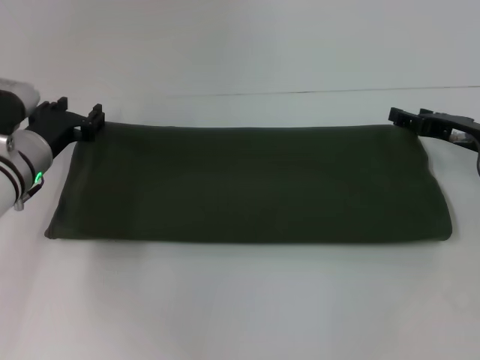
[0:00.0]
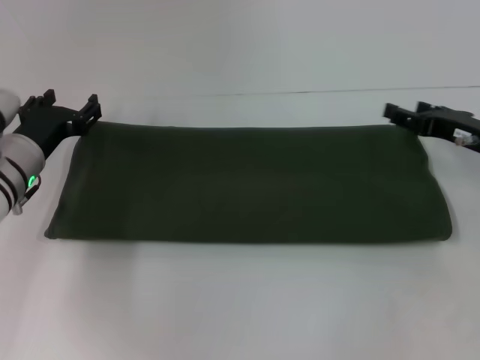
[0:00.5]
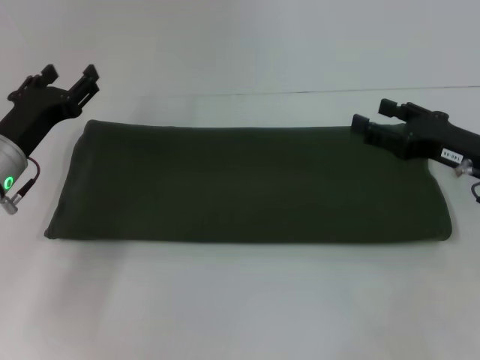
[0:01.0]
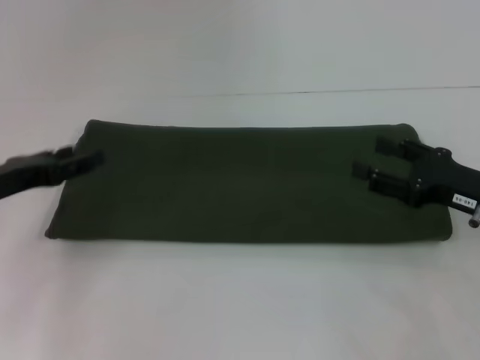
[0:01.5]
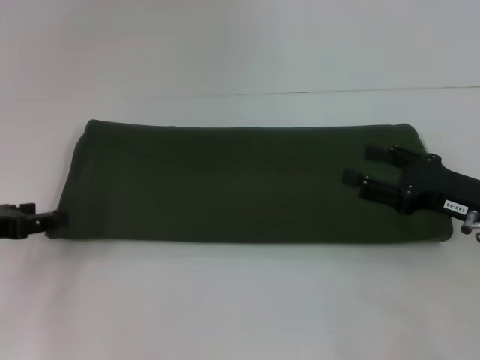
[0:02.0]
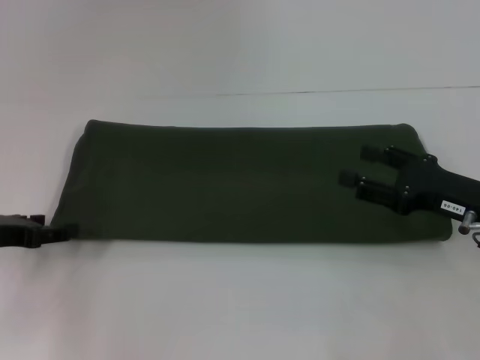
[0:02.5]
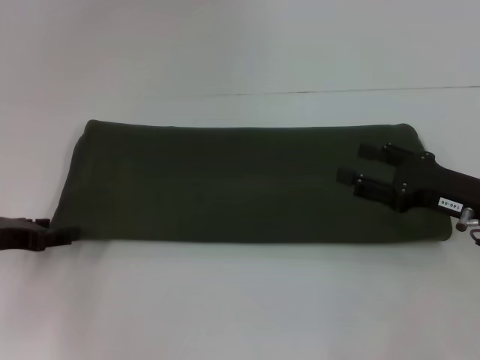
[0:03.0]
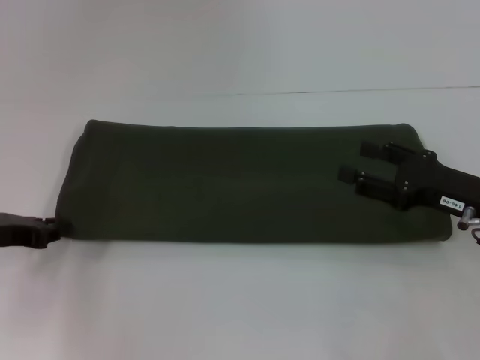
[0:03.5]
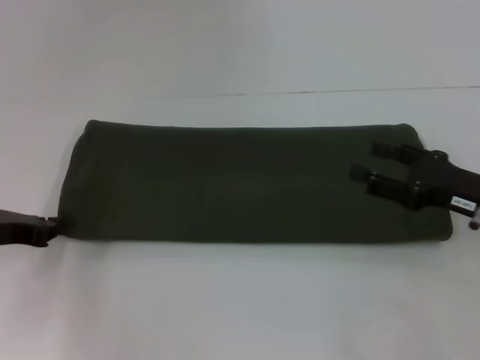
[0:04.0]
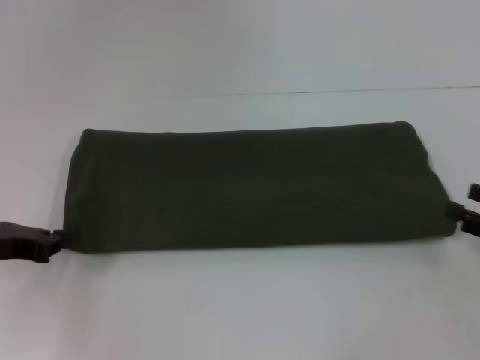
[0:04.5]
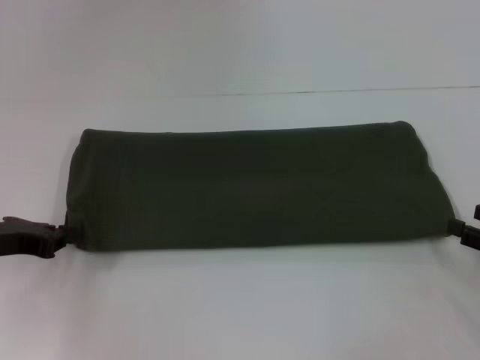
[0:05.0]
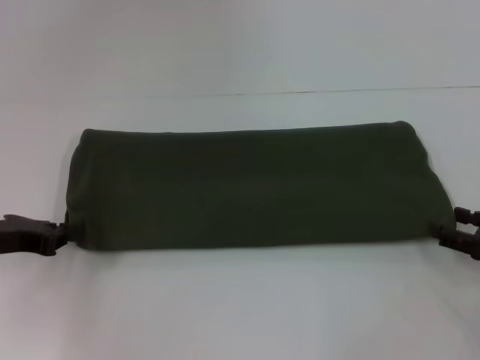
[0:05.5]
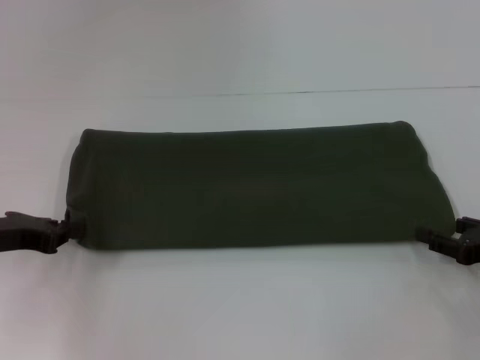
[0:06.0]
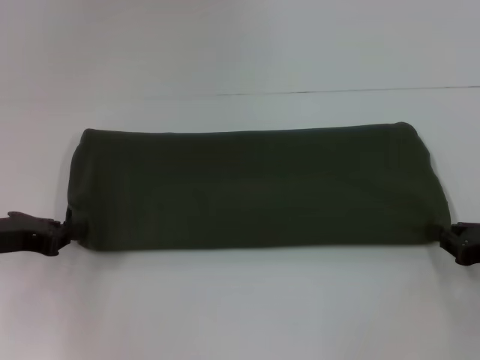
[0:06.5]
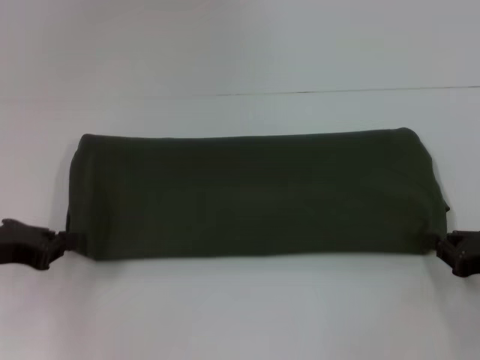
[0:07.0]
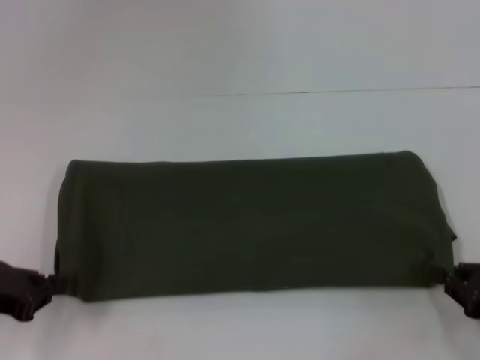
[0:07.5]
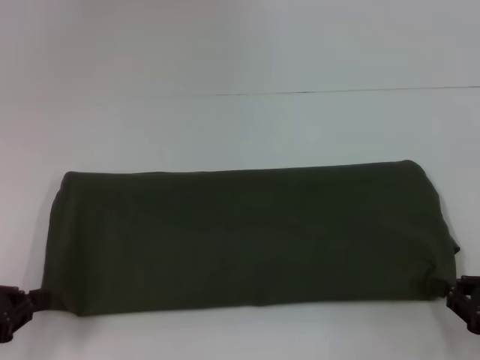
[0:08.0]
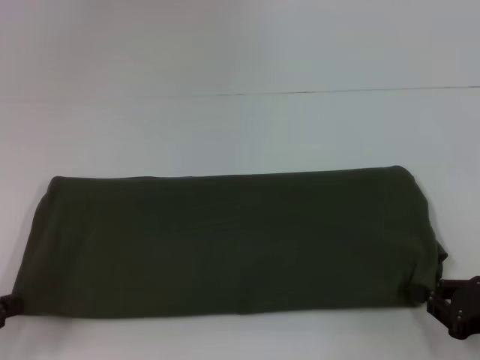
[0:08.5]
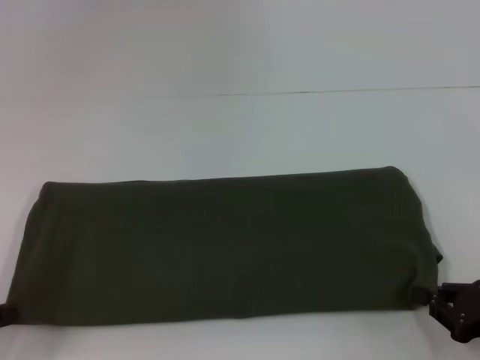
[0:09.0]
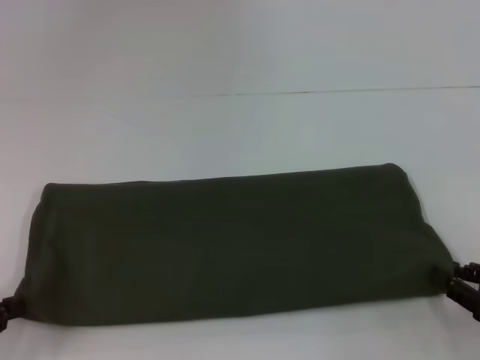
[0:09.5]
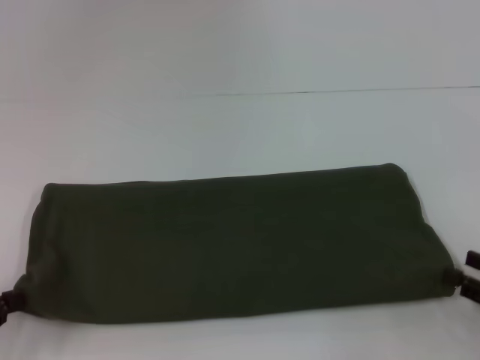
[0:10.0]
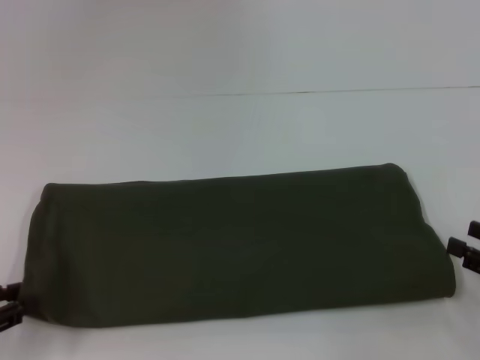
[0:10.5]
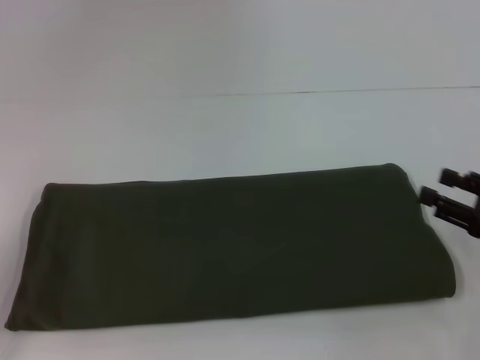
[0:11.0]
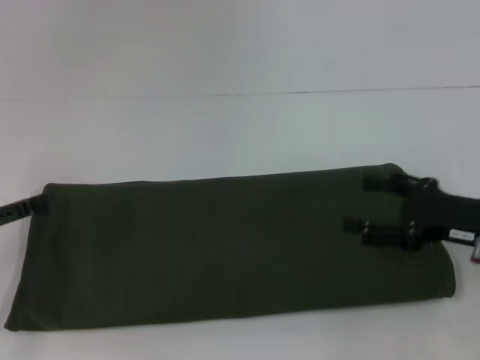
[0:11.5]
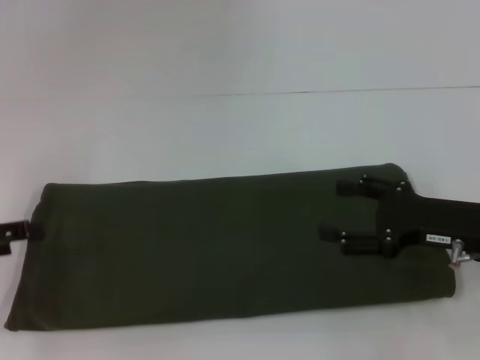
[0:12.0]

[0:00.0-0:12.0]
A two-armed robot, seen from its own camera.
Step, 0:00.0 to 0:09.5: Pull the clothes with your right hand.
Step, 0:10.0 to 0:10.5: Pull the clothes with your left hand.
0:00.0 to 0:02.0: The left gripper shifts about 15 cm to the left and backward, while the right gripper travels backward by about 10 cm.
0:02.0 to 0:04.0: The left gripper closes its fingers.
0:04.0 to 0:06.0: The right gripper travels to the right by approximately 5 cm.
0:06.0 to 0:08.0: Both grippers move backward, about 10 cm. The right gripper closes.
0:08.0 to 0:10.0: The right gripper opens up.
0:10.0 to 0:12.0: The right gripper moves forward, to the left and upward, some 15 cm, and opens its fingers, while the left gripper moves forward, some 5 cm, and opens its fingers.

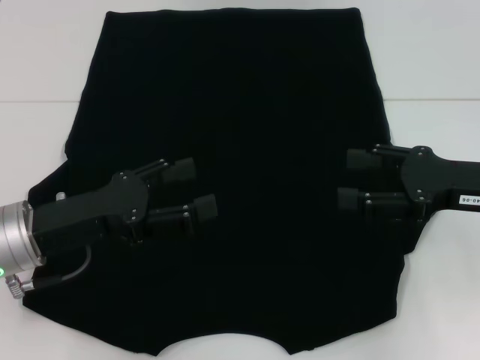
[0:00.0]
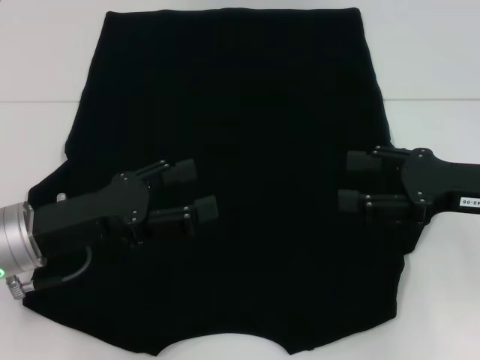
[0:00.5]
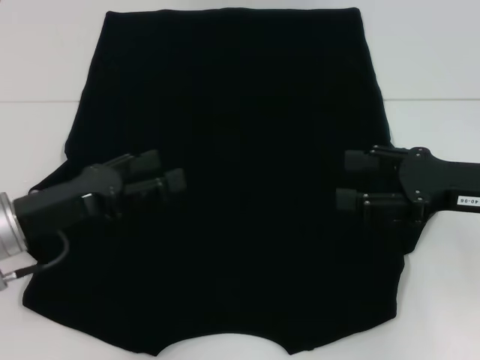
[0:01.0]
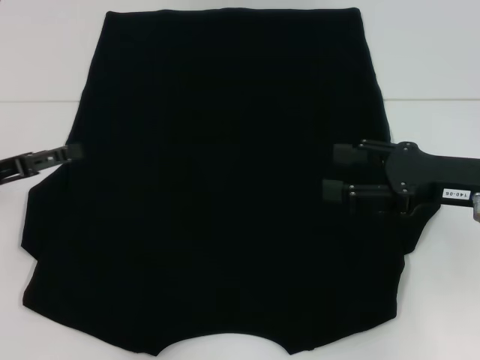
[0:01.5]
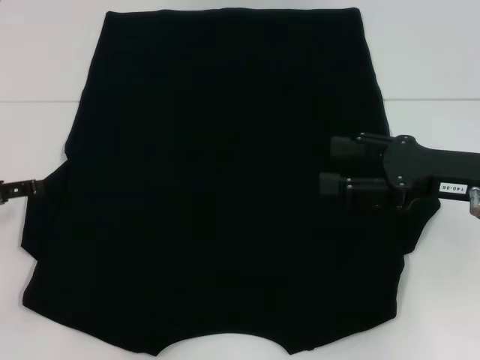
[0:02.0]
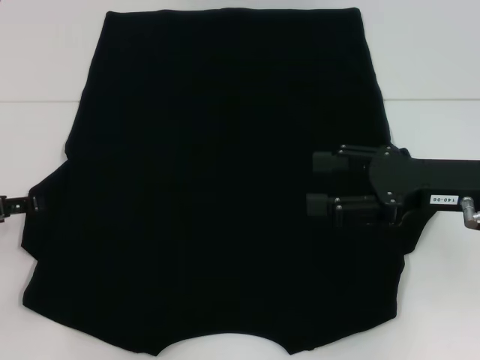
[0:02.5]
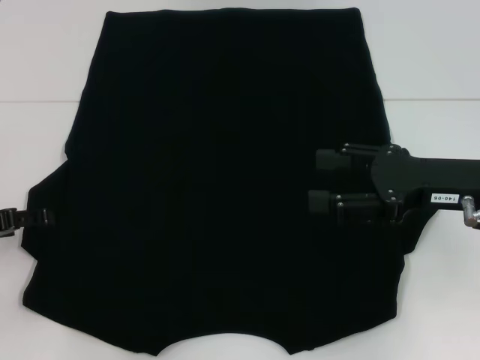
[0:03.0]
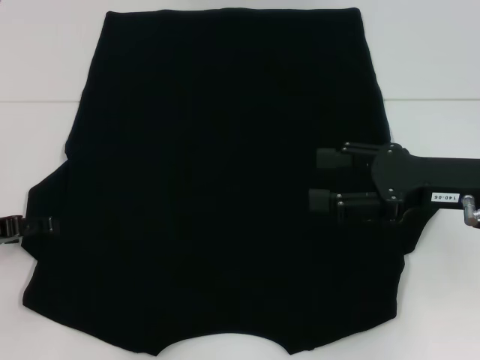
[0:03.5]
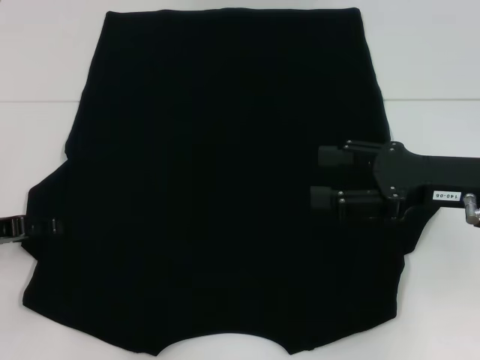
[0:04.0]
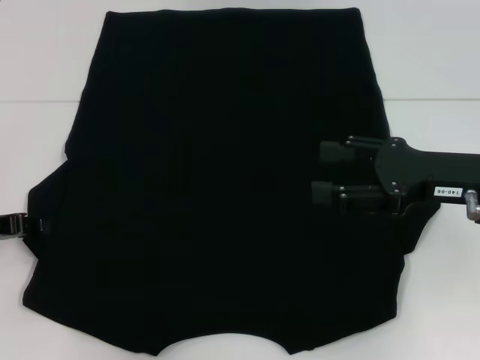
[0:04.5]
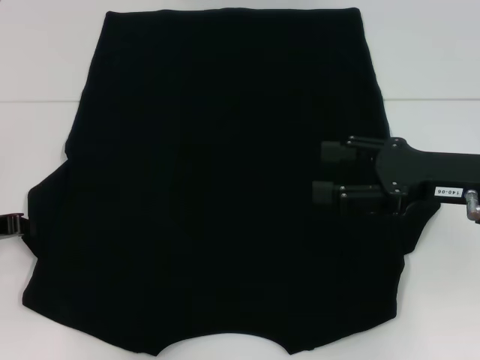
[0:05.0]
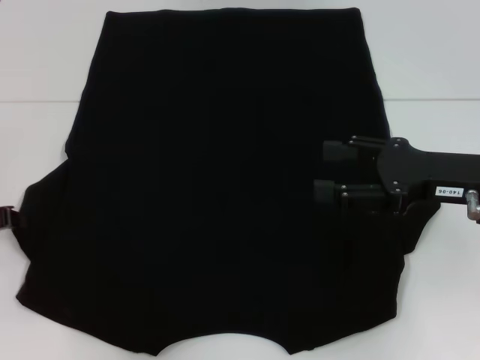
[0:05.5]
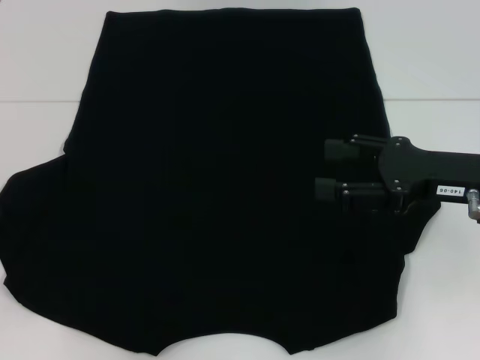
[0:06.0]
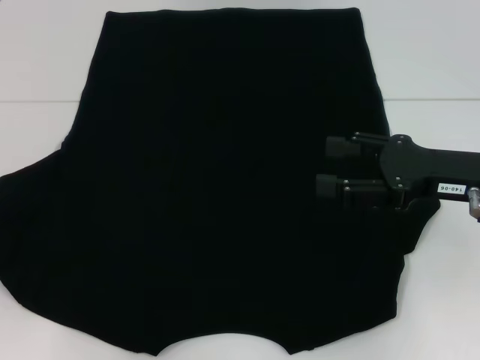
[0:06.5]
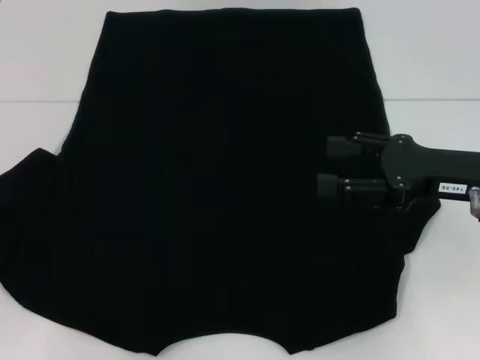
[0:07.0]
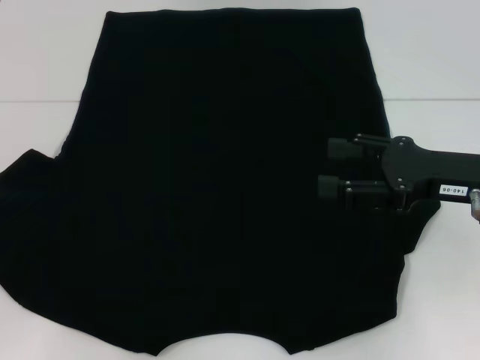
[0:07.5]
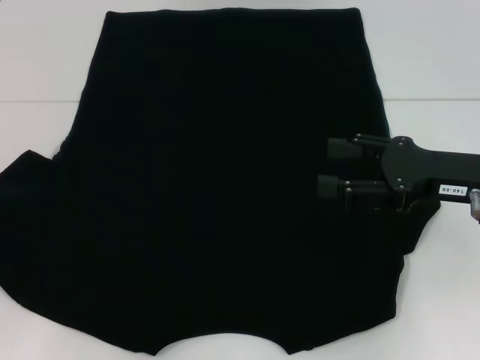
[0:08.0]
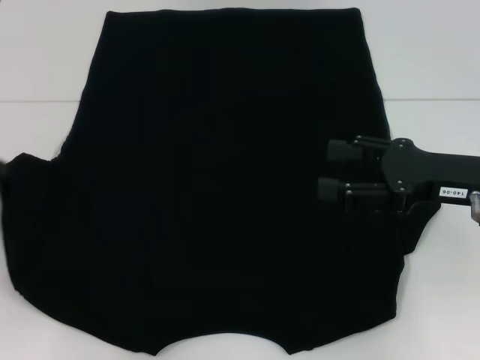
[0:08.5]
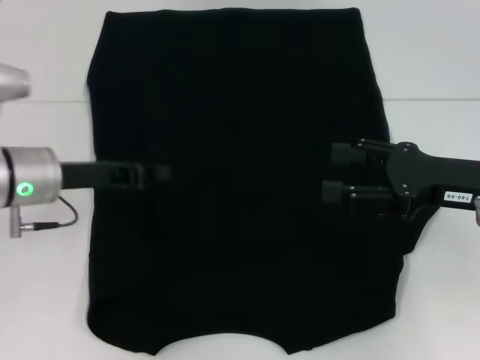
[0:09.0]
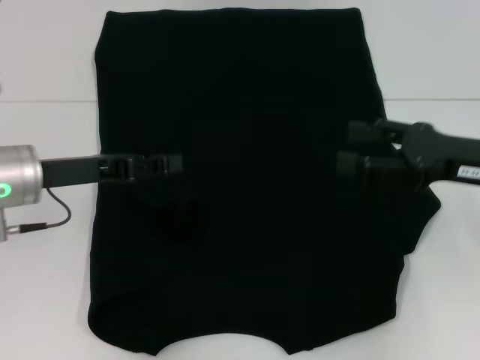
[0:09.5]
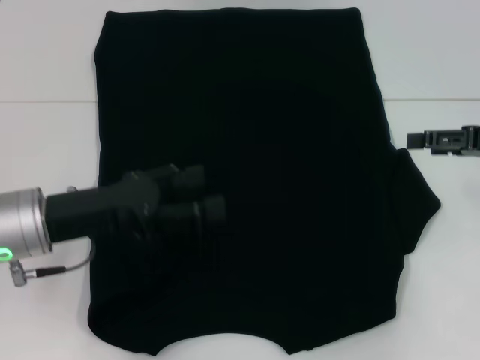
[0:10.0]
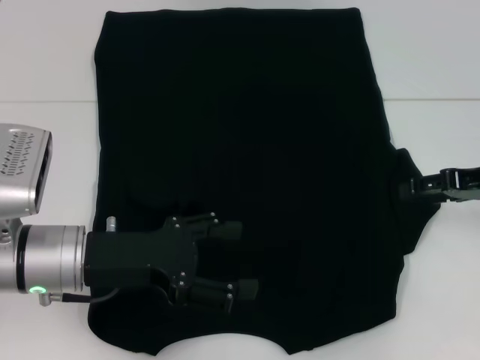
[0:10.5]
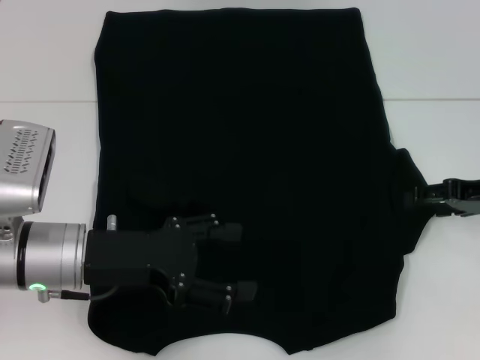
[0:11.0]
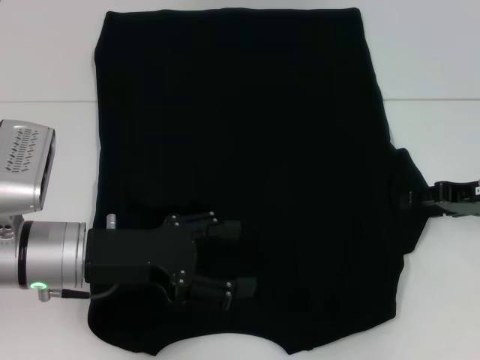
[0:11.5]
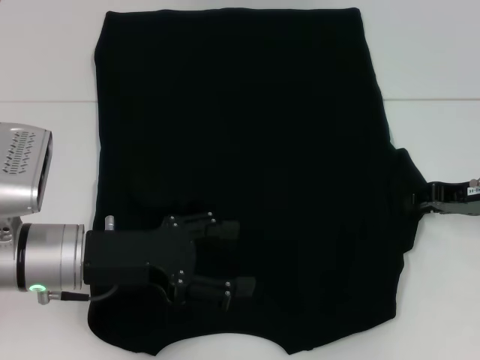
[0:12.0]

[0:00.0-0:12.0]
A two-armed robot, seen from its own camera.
Step, 0:00.0 to 0:09.0: Fold the bottom left sleeve with your left hand.
0:00.0 to 0:02.0: The left gripper goes approximately 10 cm to the left.
0:02.0 to 0:04.0: The grippers move only a little.
0:04.0 to 0:06.0: The left gripper closes up.
0:06.0 to 0:08.0: The grippers stay close to where they were, moving slightly.
0:08.0 to 0:10.0: The right gripper shifts approximately 10 cm to the right. Meanwhile the left gripper shifts some 15 cm to the right, and opens up.
0:10.0 to 0:12.0: The right gripper heads downward, covering about 5 cm, and closes up.

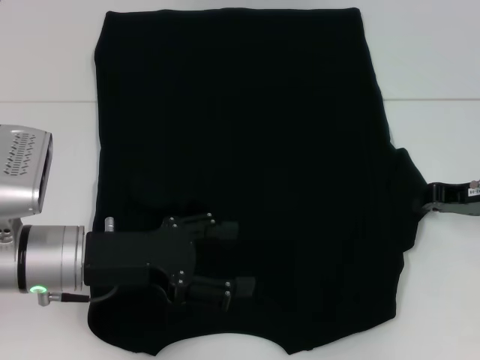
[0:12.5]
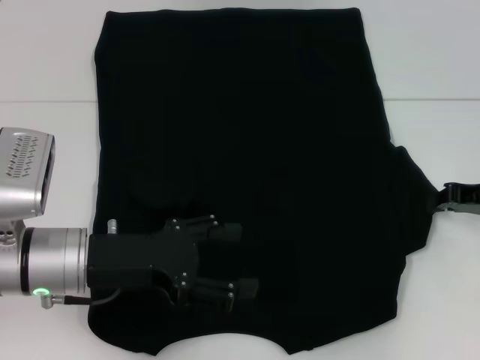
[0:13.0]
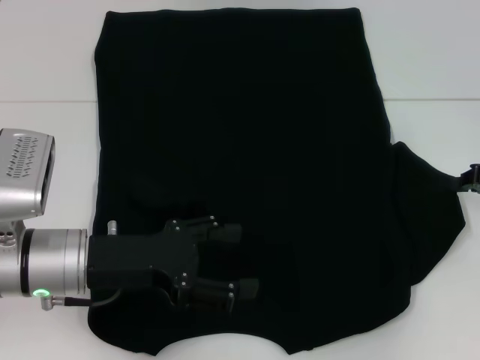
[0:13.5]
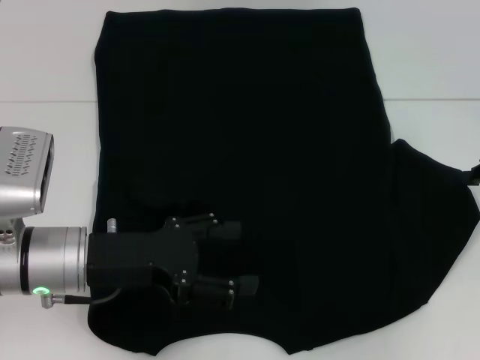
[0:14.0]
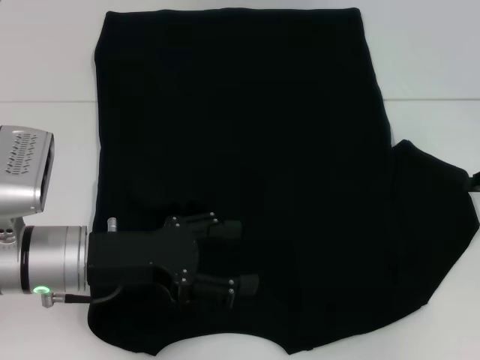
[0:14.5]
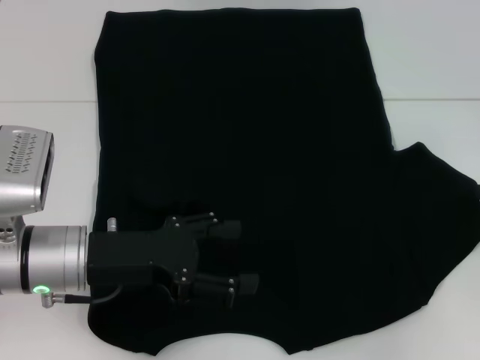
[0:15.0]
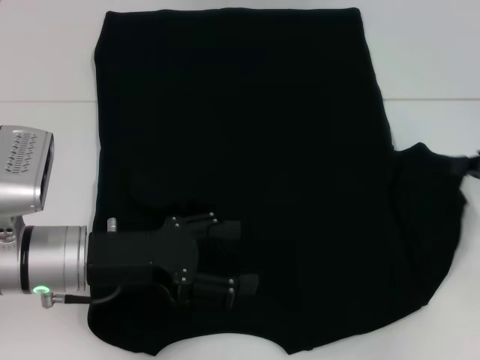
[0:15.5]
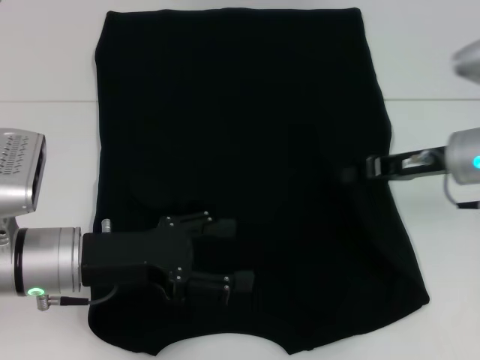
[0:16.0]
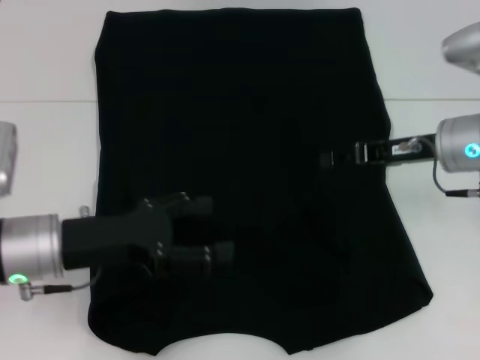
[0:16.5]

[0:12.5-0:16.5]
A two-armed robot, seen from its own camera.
0:12.5 to 0:14.5: The right gripper heads to the right, covering approximately 5 cm.
0:14.5 to 0:16.5: The right gripper travels to the left by some 15 cm.
